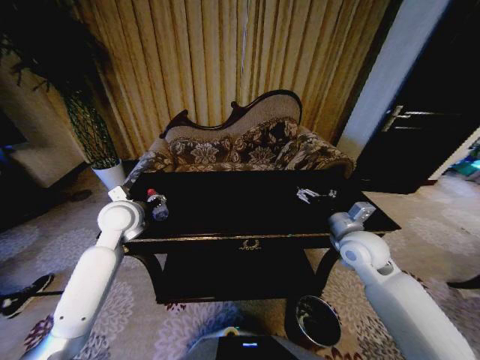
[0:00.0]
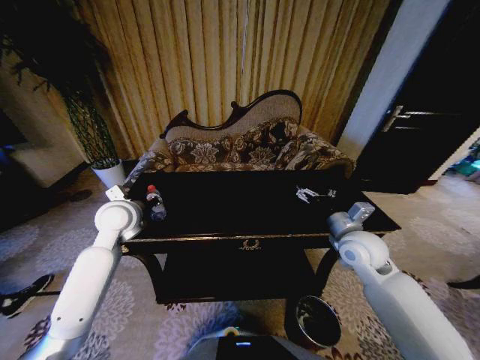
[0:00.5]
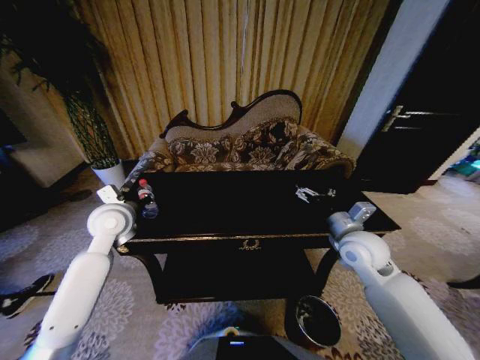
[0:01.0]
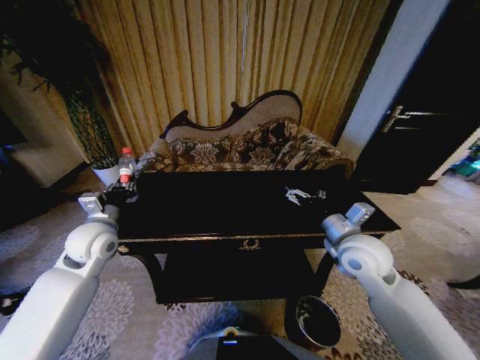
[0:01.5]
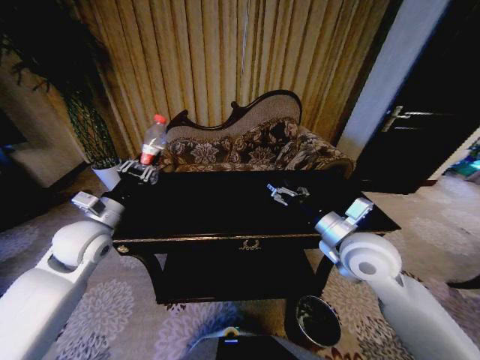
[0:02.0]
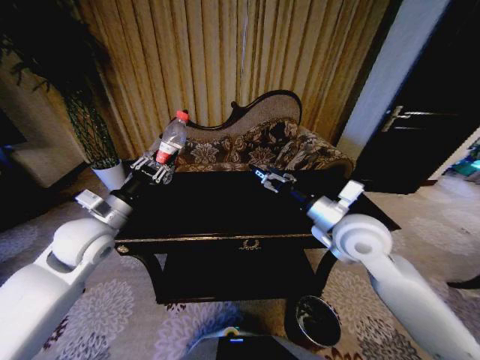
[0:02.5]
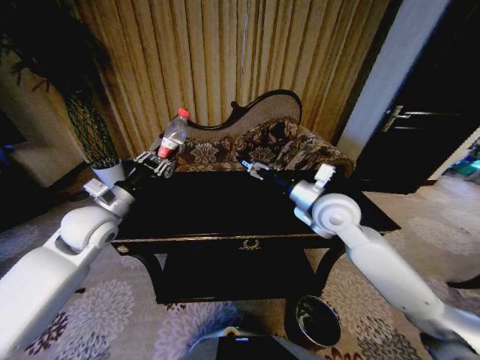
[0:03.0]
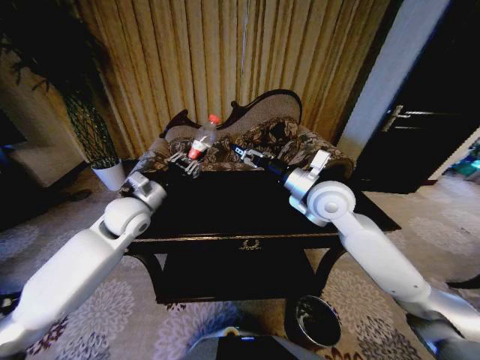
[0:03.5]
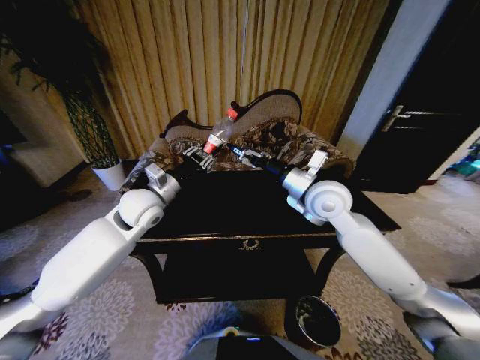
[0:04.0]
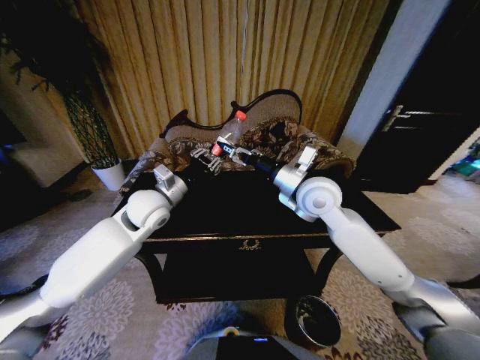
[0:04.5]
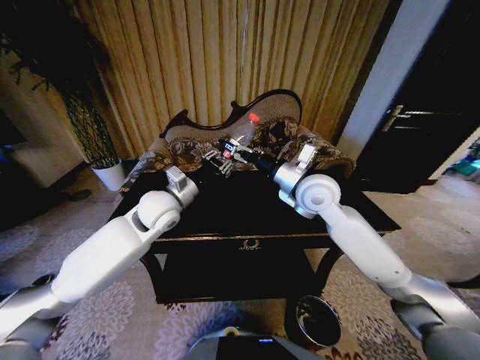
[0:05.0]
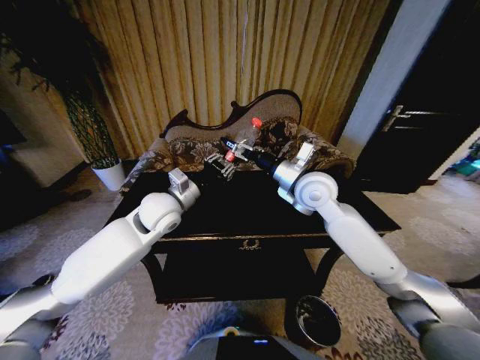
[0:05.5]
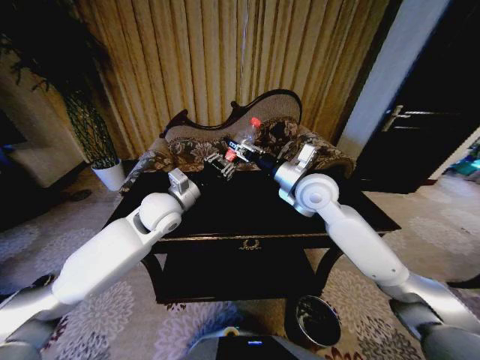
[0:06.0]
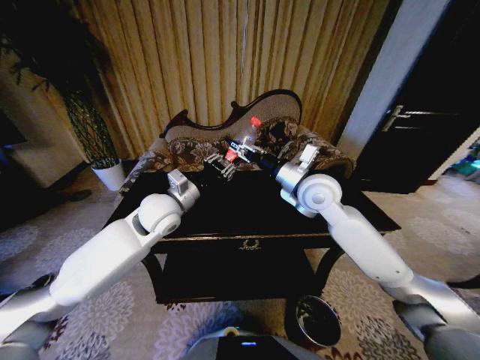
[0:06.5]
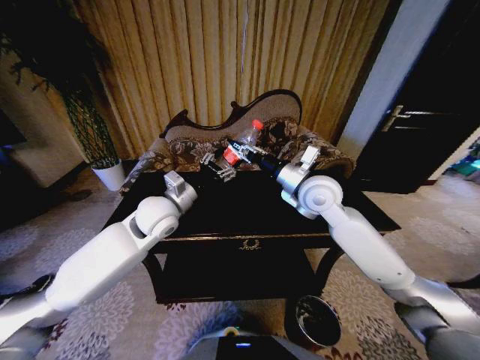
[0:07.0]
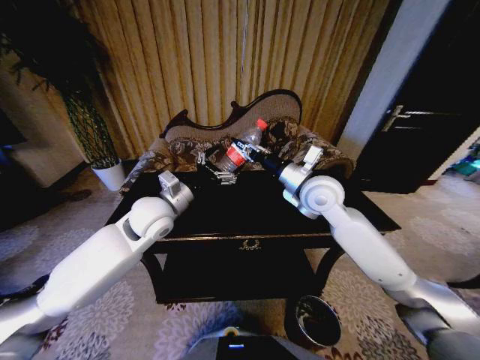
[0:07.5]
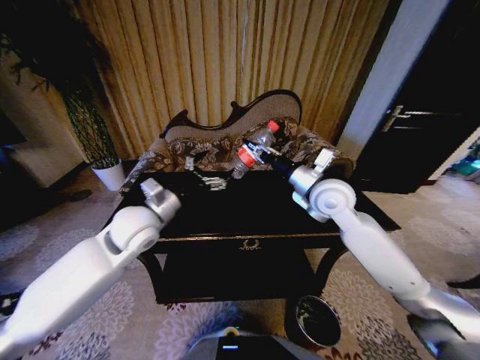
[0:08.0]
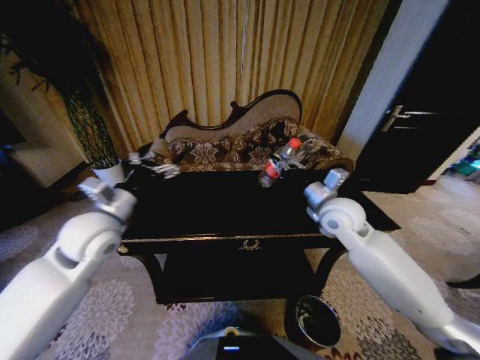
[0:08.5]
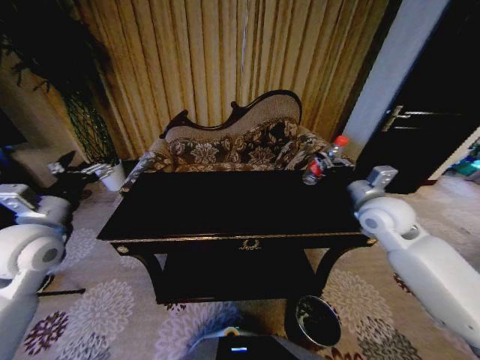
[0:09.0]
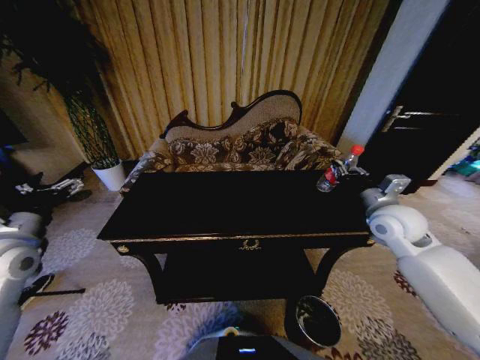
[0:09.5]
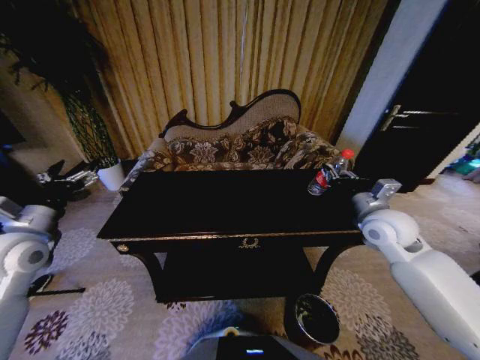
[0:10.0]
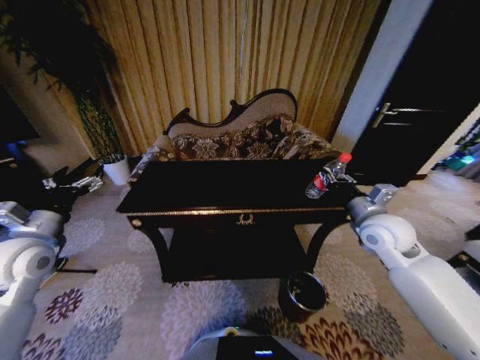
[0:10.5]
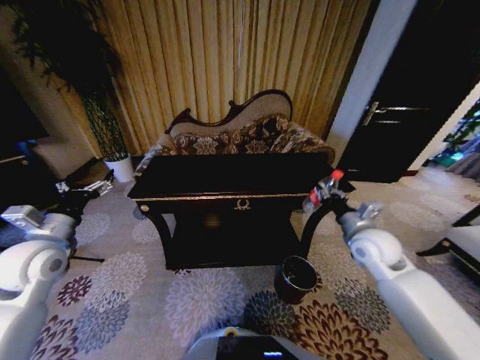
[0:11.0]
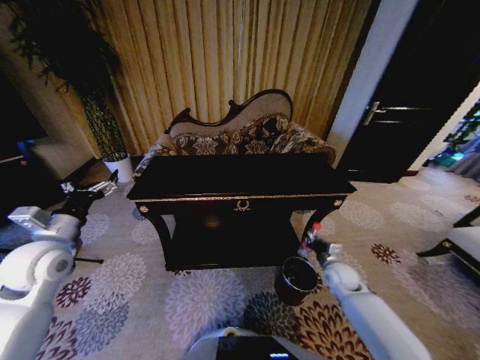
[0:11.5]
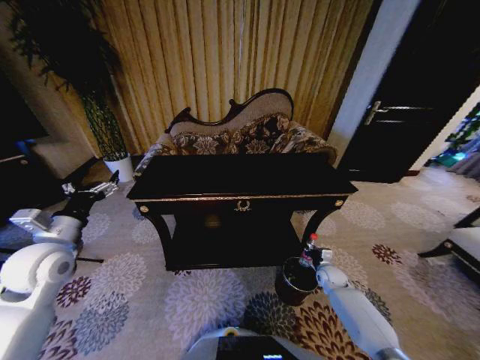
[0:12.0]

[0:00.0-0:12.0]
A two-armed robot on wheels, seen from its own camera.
Task of the whole recording: Move to the front of the table and place the trash on the table into the trash bin.
0.0 to 2.0 s: The right gripper travels upward and to the left by about 10 cm. The left gripper moves backward, roughly 5 cm, and closes up.
2.0 to 4.0 s: The right gripper travels forward, to the left and upward by approximately 15 cm; the left gripper moves to the right and forward, roughly 15 cm.
4.0 to 6.0 s: The right gripper closes up.
6.0 to 8.0 s: The left gripper is displaced backward by approximately 5 cm, and opens its fingers.
8.0 to 10.0 s: The left gripper is displaced to the left by approximately 20 cm. The right gripper shifts approximately 15 cm to the right and backward.
10.0 to 12.0 s: The right gripper goes about 35 cm downward.

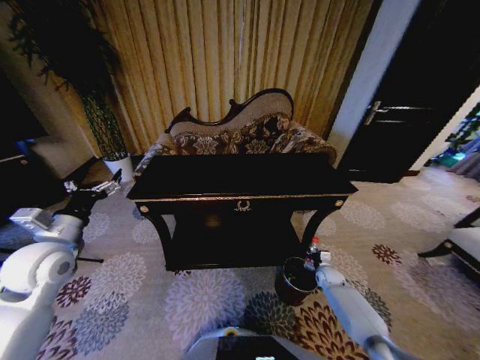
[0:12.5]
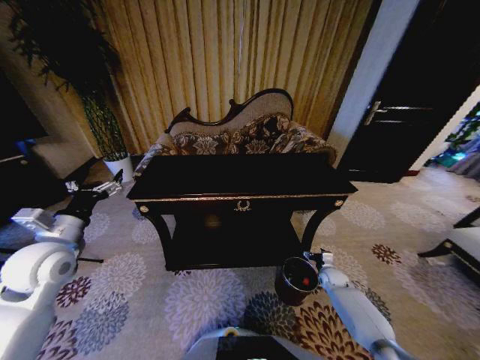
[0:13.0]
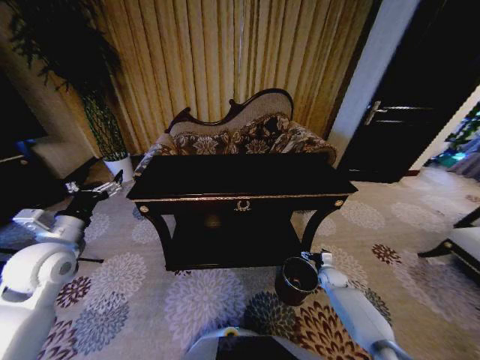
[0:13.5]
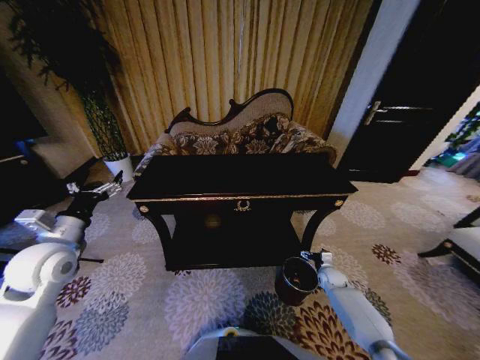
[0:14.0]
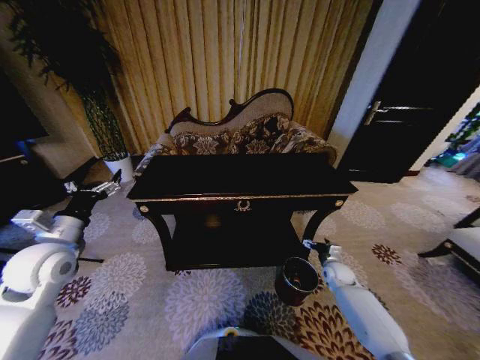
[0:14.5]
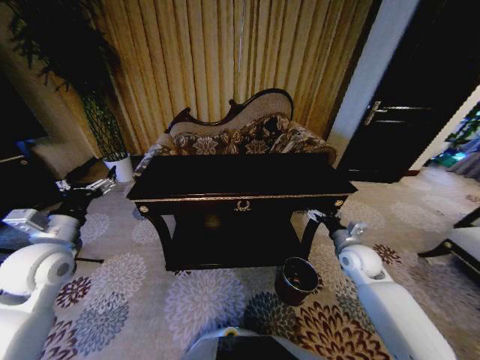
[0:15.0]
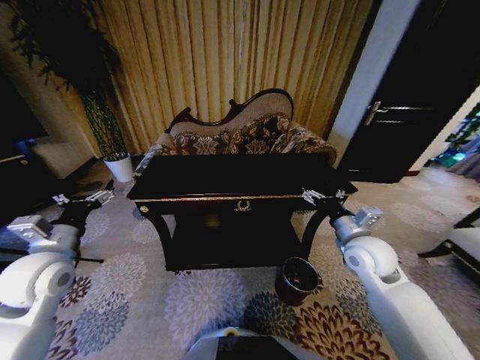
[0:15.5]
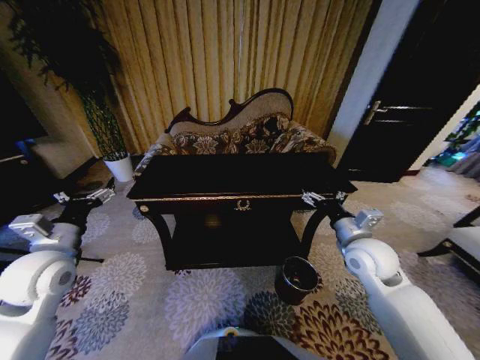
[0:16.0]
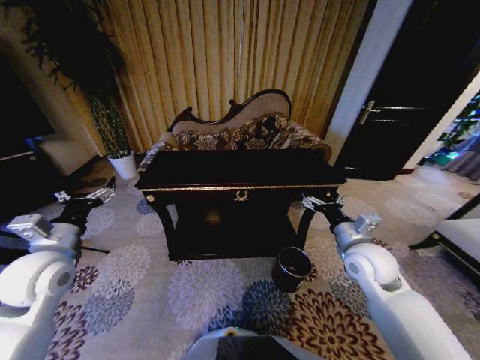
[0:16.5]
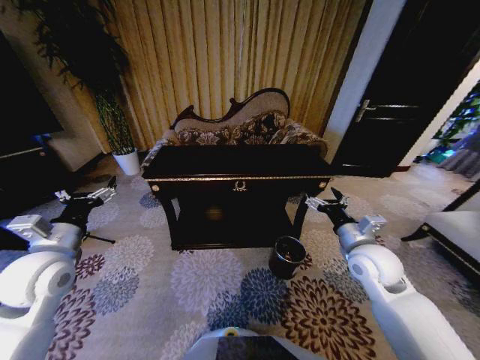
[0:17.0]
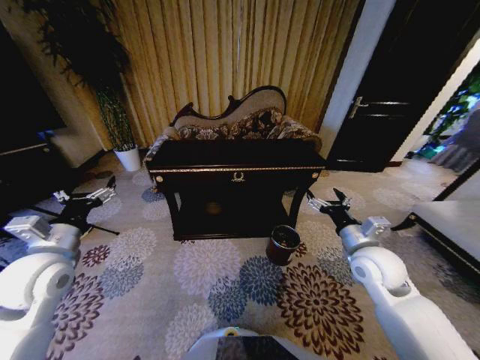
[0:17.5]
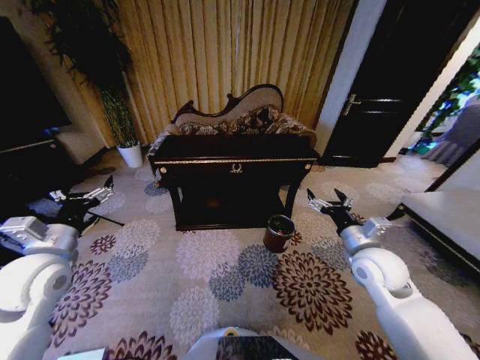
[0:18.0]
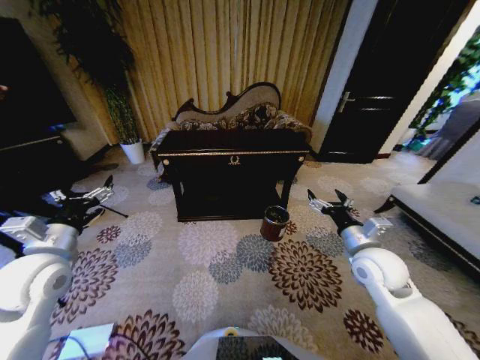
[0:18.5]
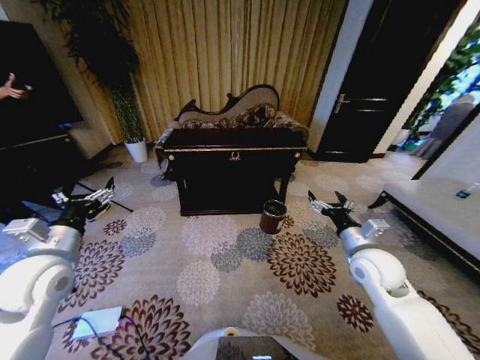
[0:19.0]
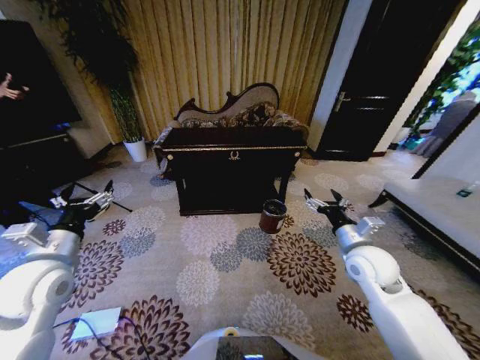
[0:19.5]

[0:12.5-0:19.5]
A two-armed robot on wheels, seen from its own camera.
Task of the whole recording: Move to the front of the table and place the trash on the table into the trash bin.
12.5 to 14.5 s: The right gripper heads upward, covering about 5 cm, and opens.
14.5 to 16.0 s: The right gripper travels upward by approximately 25 cm.

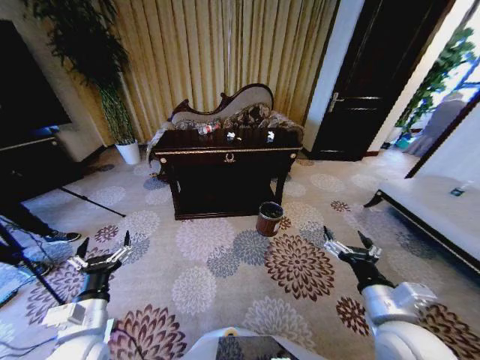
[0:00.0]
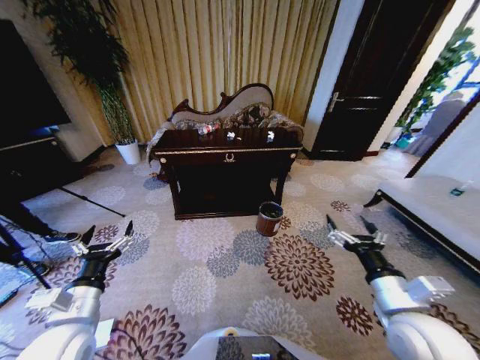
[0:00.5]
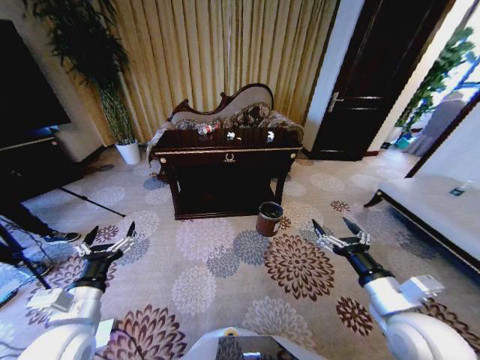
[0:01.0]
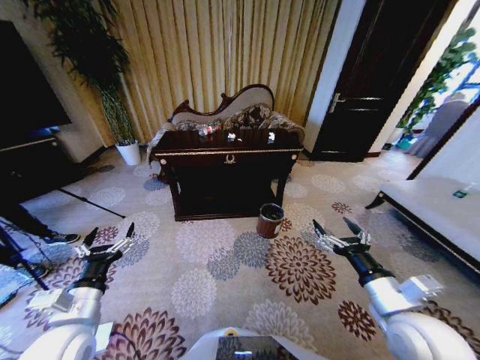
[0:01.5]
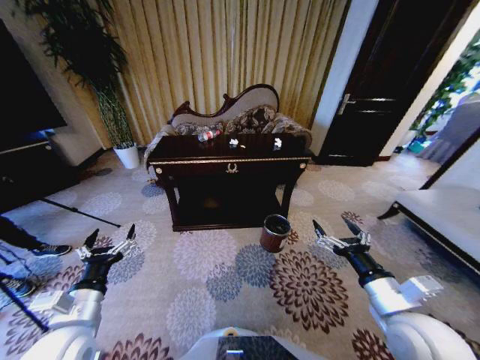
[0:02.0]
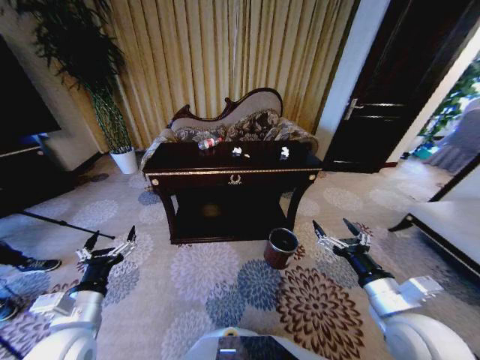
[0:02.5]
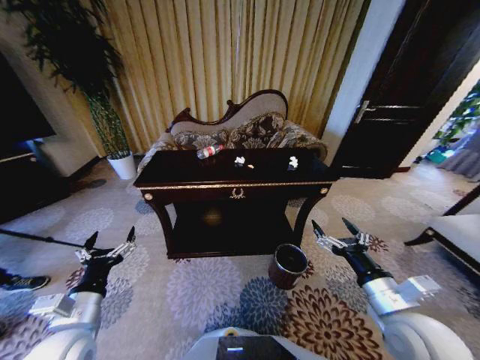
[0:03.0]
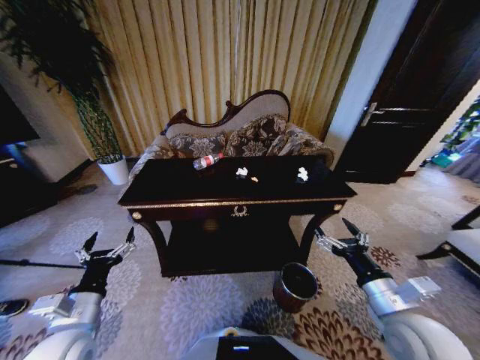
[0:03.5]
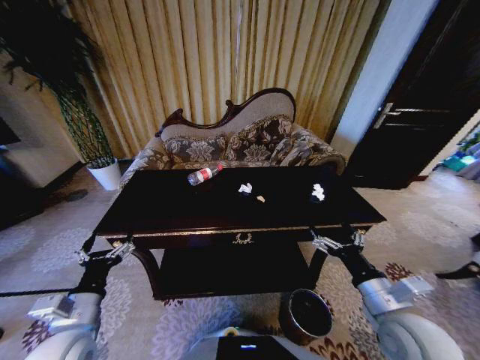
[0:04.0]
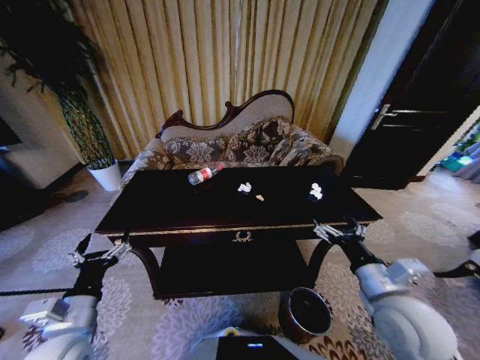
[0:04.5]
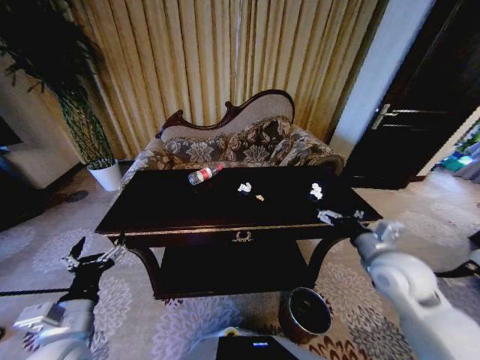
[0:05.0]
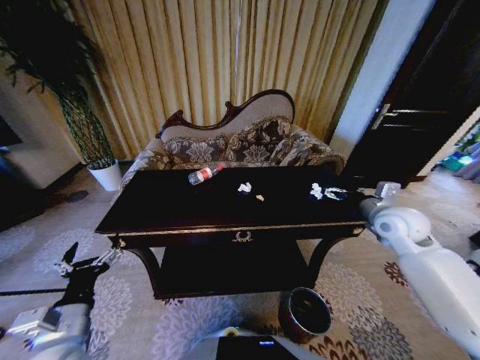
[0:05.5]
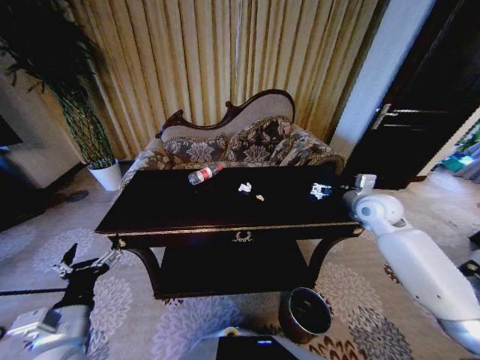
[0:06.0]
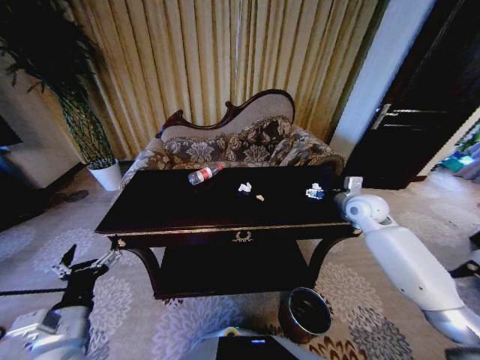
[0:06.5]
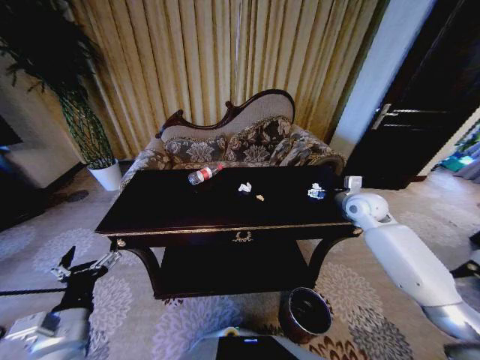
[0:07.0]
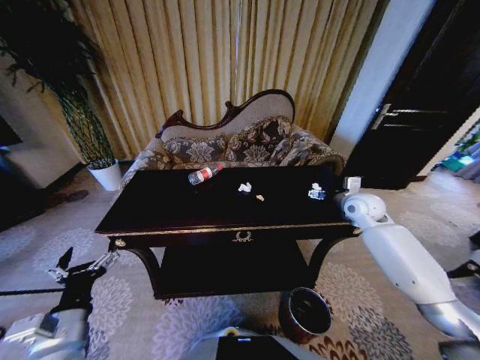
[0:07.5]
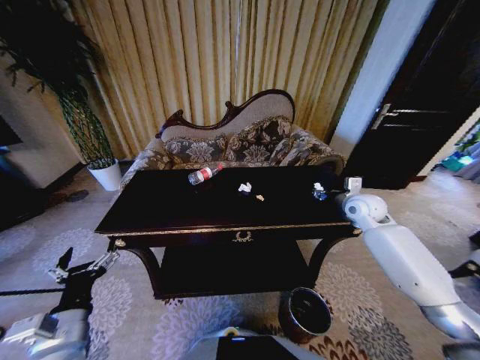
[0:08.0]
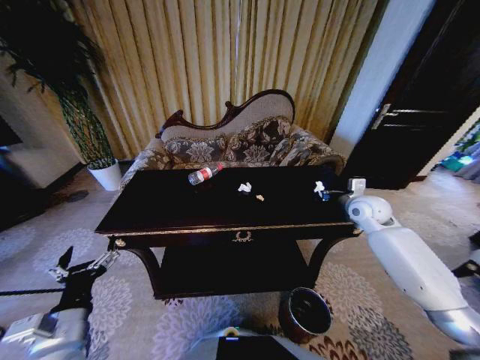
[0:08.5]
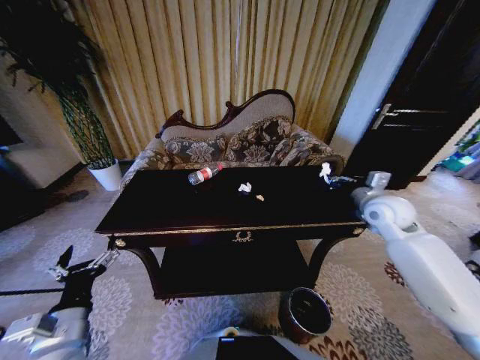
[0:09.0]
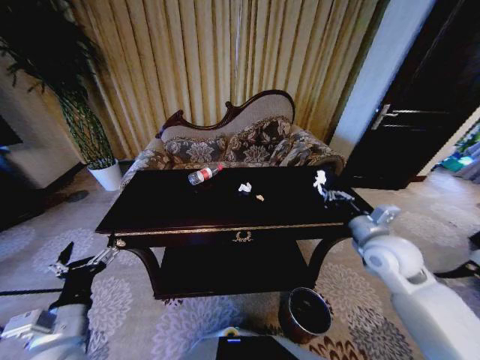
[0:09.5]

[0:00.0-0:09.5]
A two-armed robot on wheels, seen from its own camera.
Task of the whole recording: Move to the front of the table and place the trash on the table into the trash bin.
4.0 to 5.5 s: The right gripper is displaced forward and to the right by some 25 cm.
5.5 to 7.5 s: The right gripper shifts some 10 cm forward.
7.5 to 9.5 s: The right gripper is displaced backward by approximately 15 cm, and closes.
